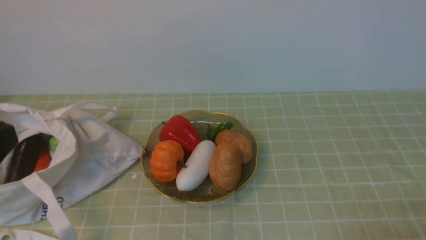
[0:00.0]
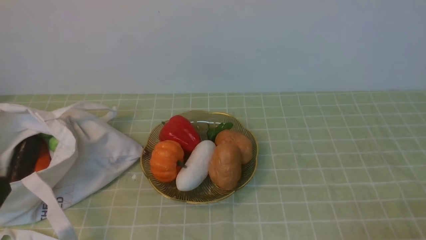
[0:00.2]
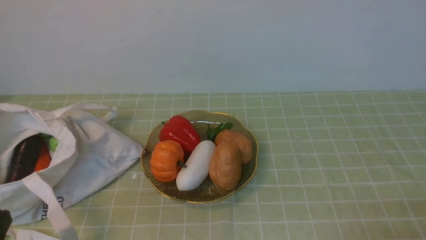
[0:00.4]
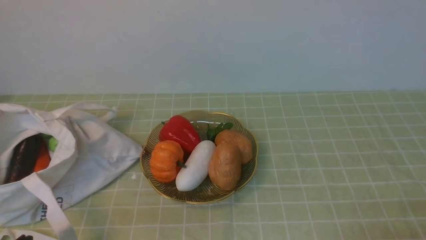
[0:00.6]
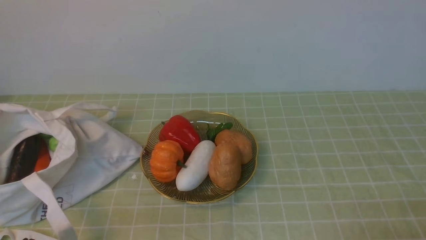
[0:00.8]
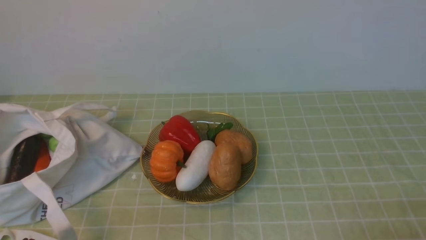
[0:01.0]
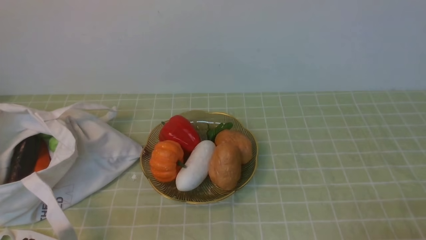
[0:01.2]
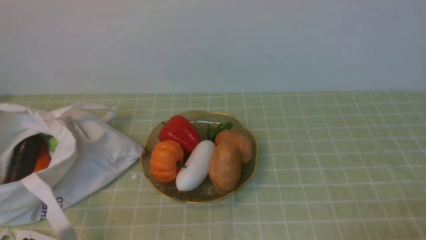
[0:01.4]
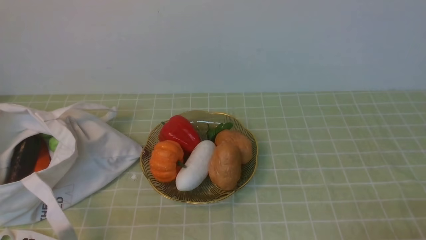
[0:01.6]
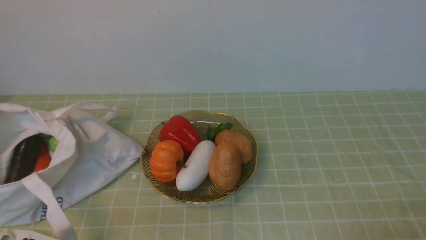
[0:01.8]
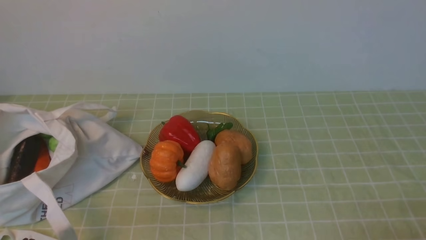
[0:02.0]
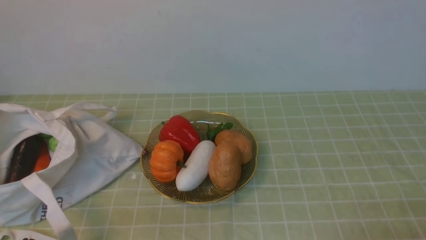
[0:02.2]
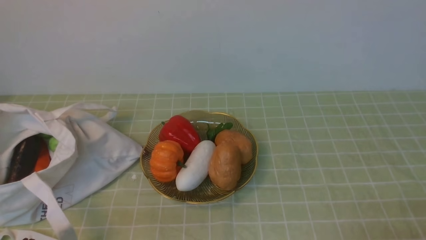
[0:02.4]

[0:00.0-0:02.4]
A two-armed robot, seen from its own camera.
Task of the whole recording: take vegetables from bag on green coffee tablecloth place on plate.
0:01.2 to 0:02.4: Both grippers stay about where they are.
